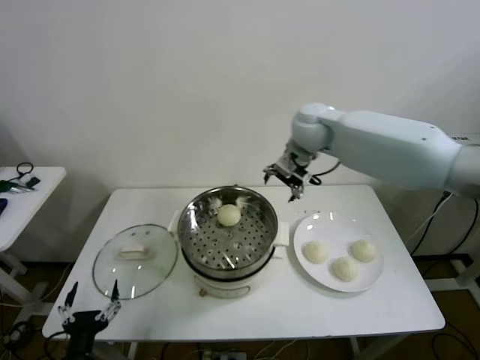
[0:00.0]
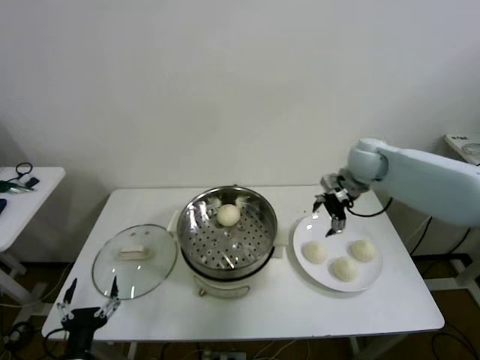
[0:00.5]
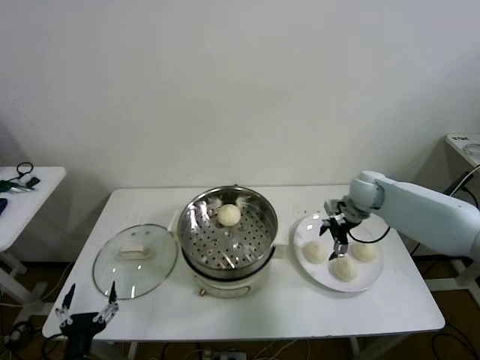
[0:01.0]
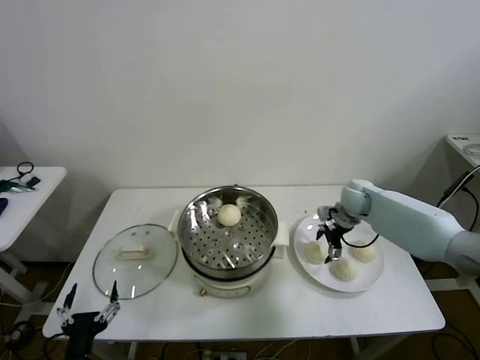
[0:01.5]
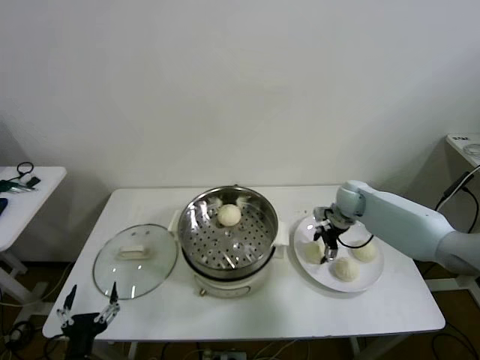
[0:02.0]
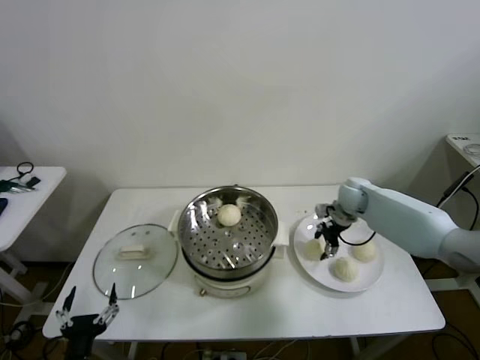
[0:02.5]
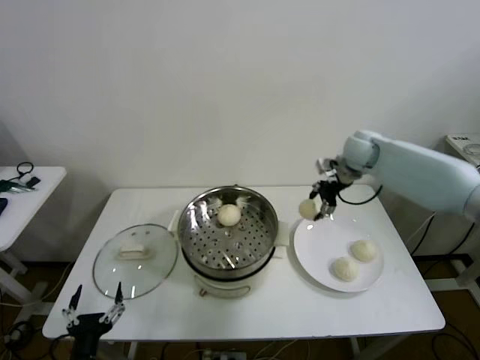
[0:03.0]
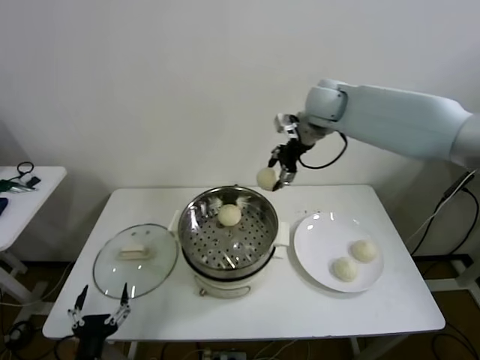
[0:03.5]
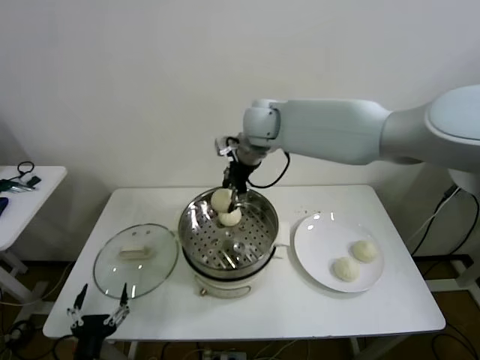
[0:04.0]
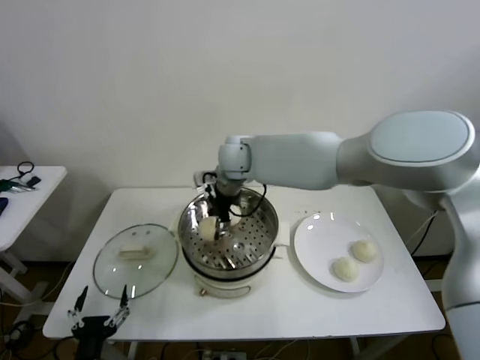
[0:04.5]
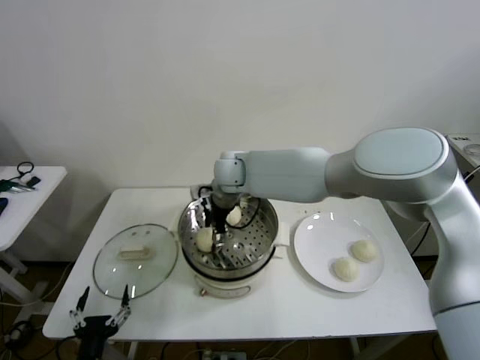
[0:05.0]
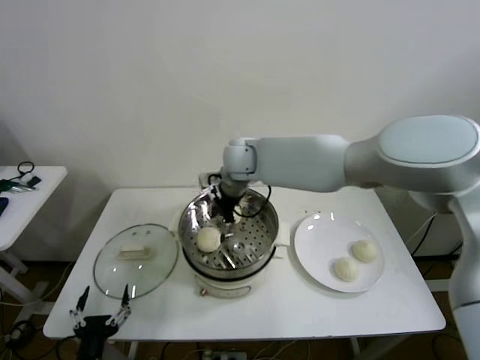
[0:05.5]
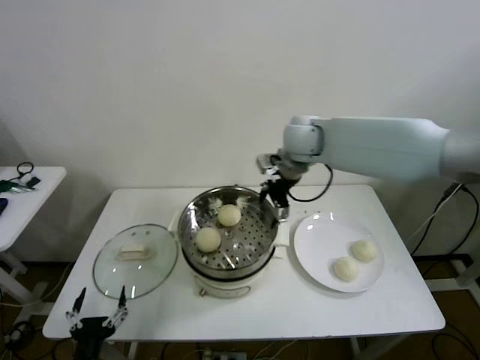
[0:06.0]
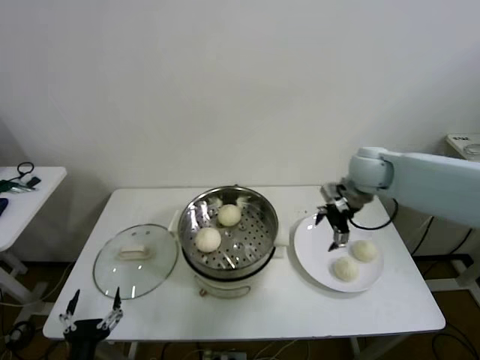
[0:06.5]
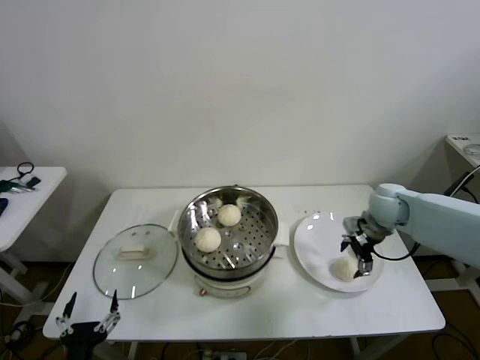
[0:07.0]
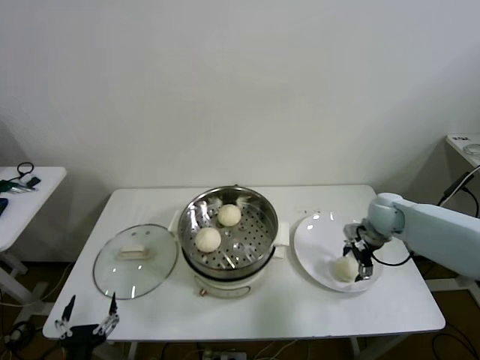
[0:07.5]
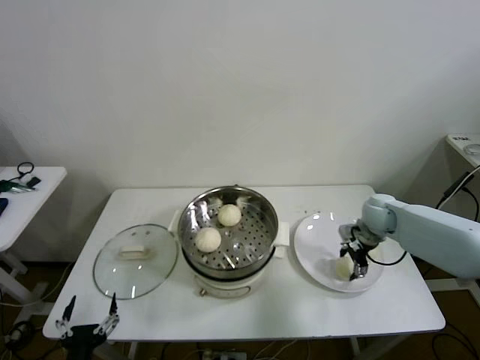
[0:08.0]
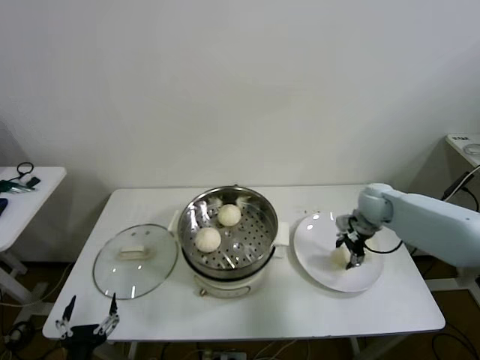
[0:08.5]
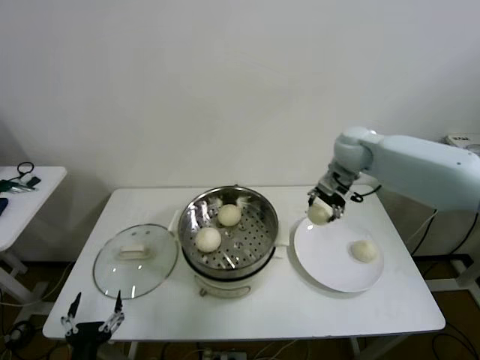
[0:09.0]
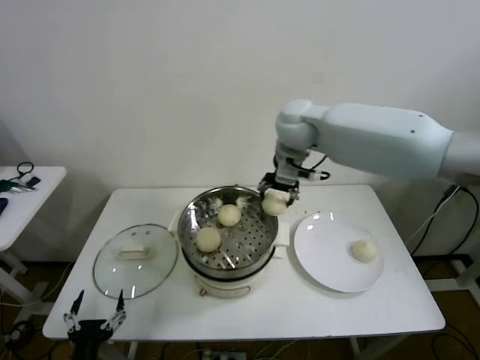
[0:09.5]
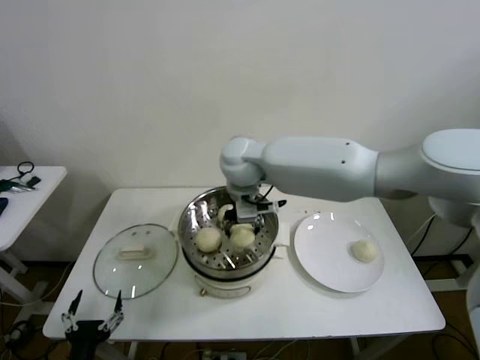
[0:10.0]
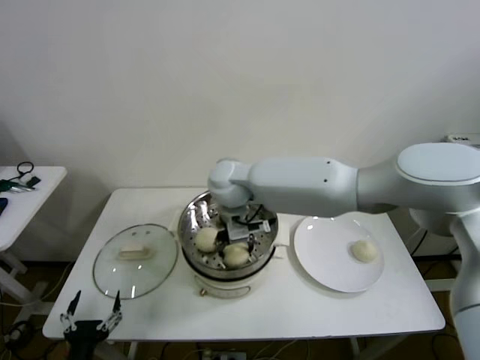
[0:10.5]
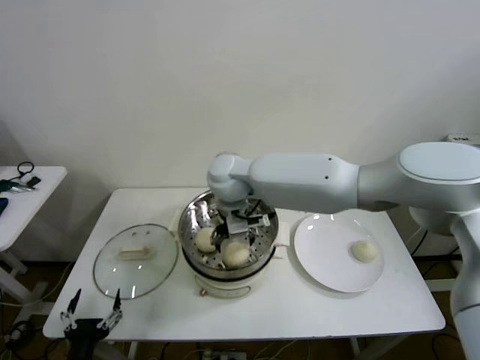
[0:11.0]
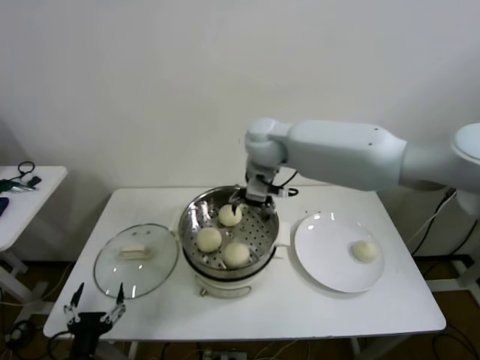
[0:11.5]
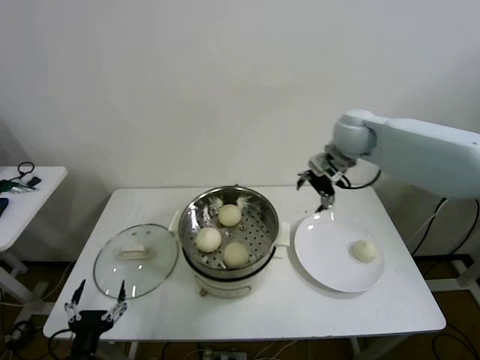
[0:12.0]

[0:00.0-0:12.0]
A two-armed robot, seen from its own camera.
Step, 0.0 to 2.0 s: Grasp the baozi in the plate with right gripper.
Step, 2.5 to 5.0 s: Place the baozi on the steamer with right gripper.
Step, 5.5 to 8.0 s: Grasp the baozi in the plate with right gripper.
Step, 8.5 to 10.5 s: Place the baozi on the steamer with right gripper.
0.0 to 2.0 s: The right gripper is displaced downward and to the right by some 25 cm, and closes.
2.0 to 4.0 s: The right gripper moves to the left and upward, about 35 cm.
4.0 to 6.0 s: The right gripper moves to the right, roughly 15 cm, and opens its fingers.
6.0 to 8.0 s: The right gripper shifts roughly 30 cm downward and to the right, and closes.
8.0 to 10.0 s: The right gripper travels to the left and upward by approximately 40 cm.
10.0 to 12.0 s: The right gripper is displaced to the right by about 25 cm, and opens up.

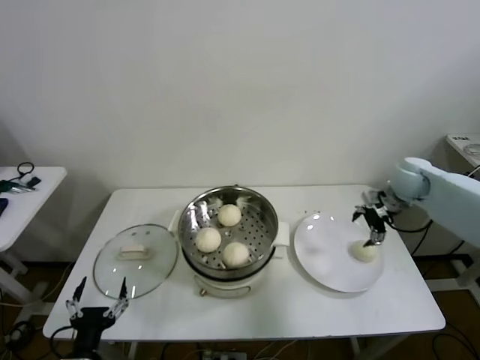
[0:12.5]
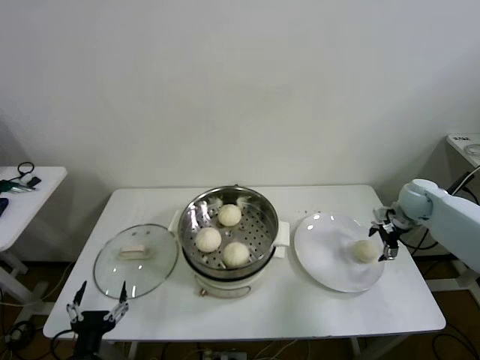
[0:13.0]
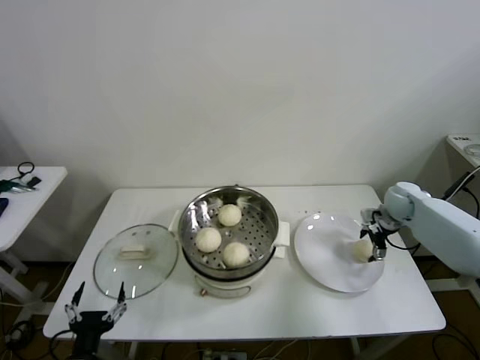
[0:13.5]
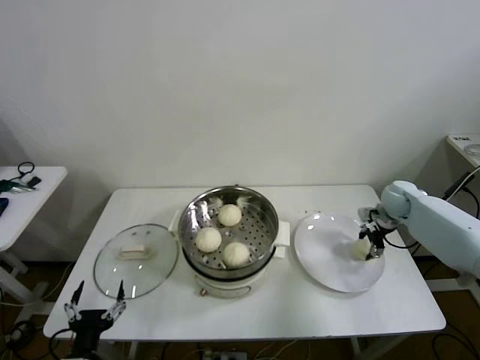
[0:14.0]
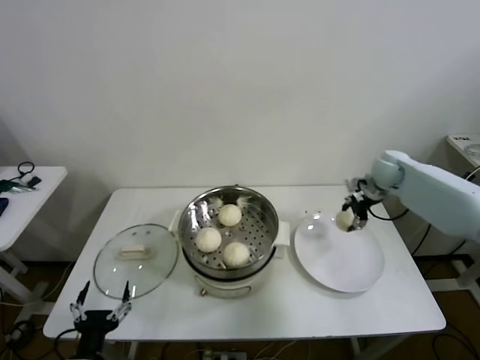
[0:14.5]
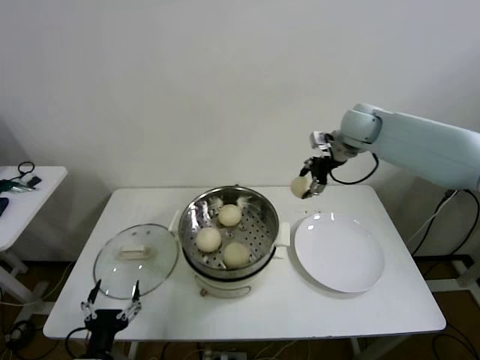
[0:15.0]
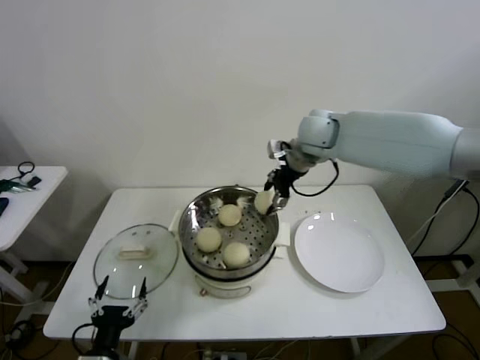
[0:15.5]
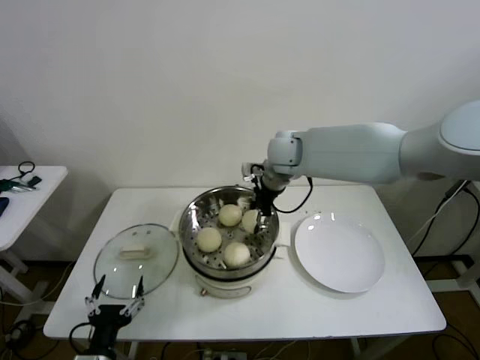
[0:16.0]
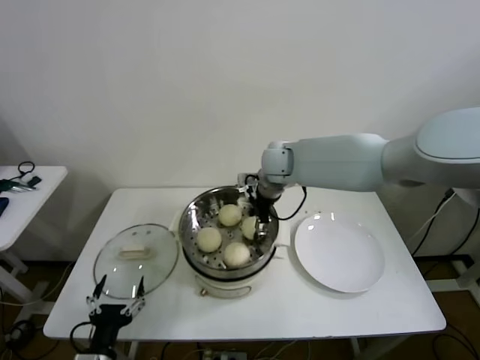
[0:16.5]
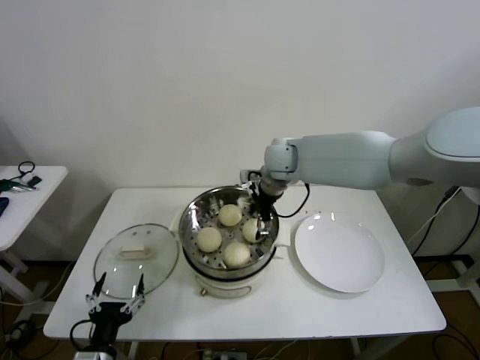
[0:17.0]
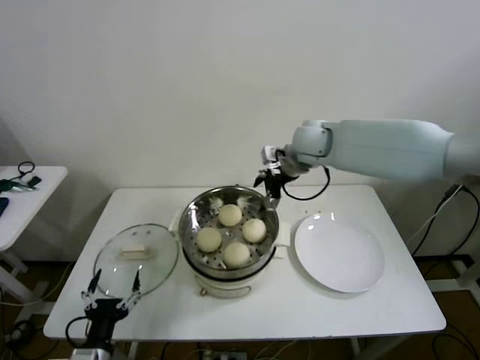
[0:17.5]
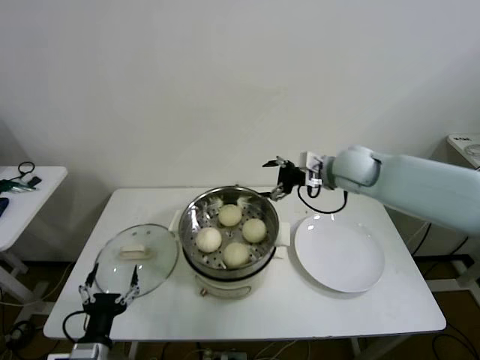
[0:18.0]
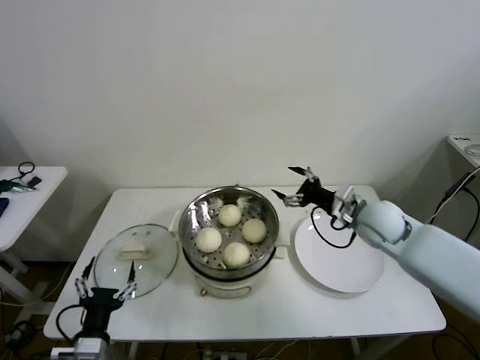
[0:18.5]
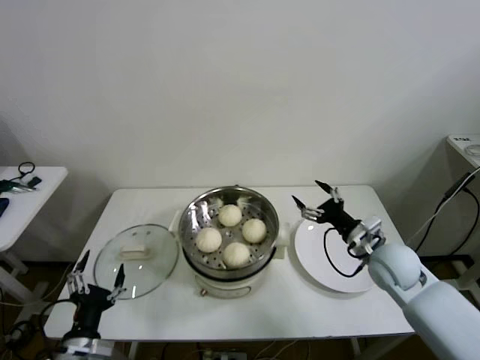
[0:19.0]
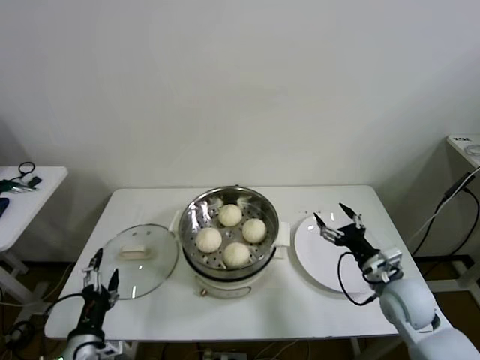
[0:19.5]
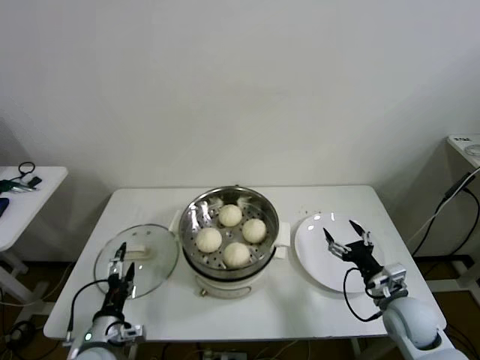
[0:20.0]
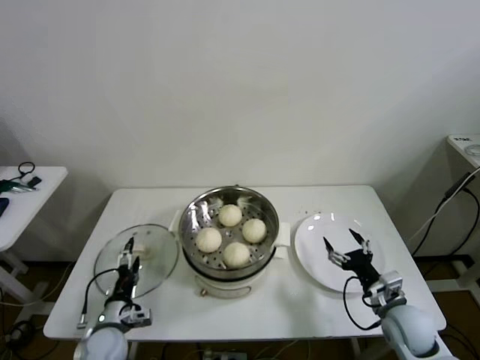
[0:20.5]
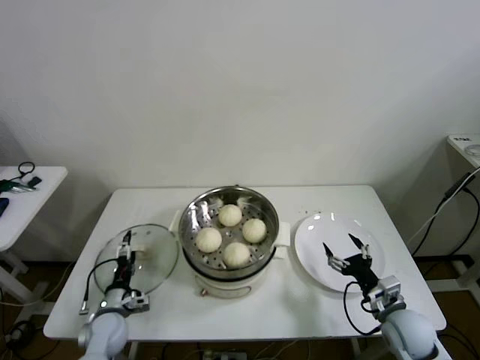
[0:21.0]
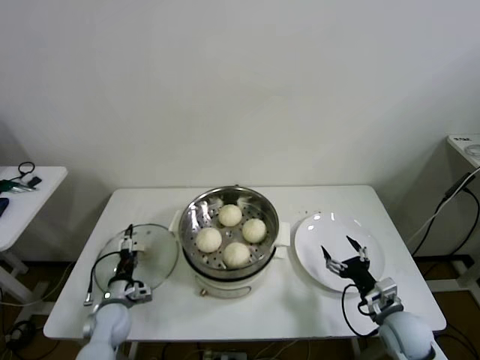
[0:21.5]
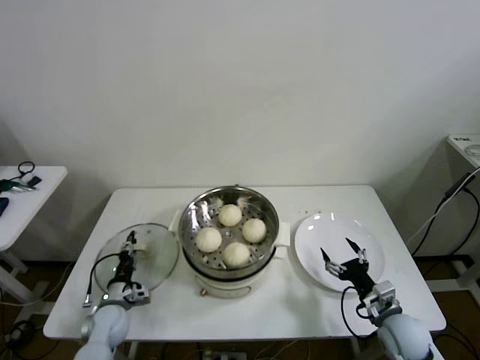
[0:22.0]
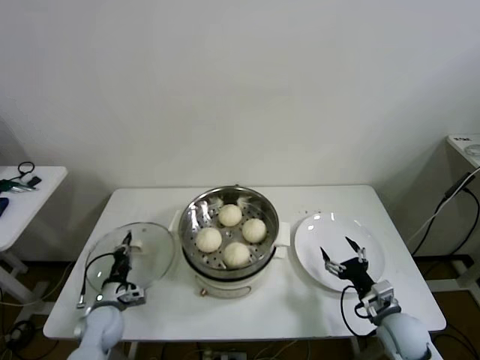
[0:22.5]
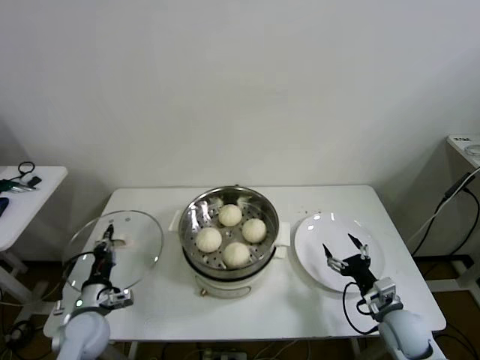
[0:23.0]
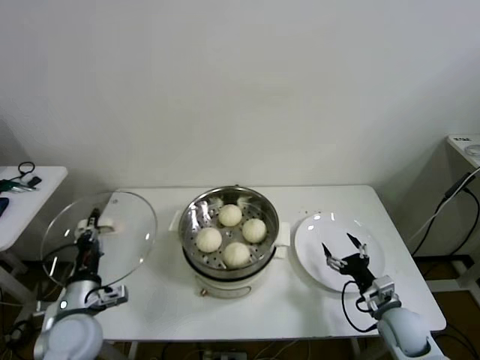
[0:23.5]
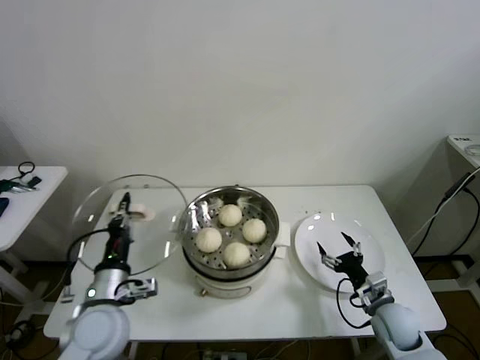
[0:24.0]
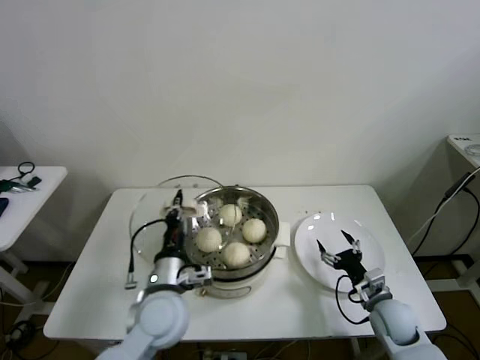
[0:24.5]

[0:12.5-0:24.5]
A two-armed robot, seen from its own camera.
Step, 14.0 to 16.5 s: Place the baozi on the steamer with right gripper.
Step, 17.5 to 22.0 s: Grasp the pot lid with left gripper.
12.5 to 14.5 s: The right gripper shifts some 5 cm forward, travels downward and back again, about 10 cm each way, and closes up.
14.5 to 16.5 s: The right gripper shifts roughly 30 cm to the left.
16.5 to 18.5 s: The right gripper is displaced to the right and backward by about 25 cm, and opens its fingers.
18.5 to 20.5 s: The right gripper goes roughly 25 cm backward and downward; the left gripper goes roughly 15 cm forward and downward.
20.5 to 22.5 s: The left gripper shifts some 5 cm forward, and closes its fingers.
22.5 to 24.5 s: The left gripper is displaced upward and to the right by approximately 25 cm.

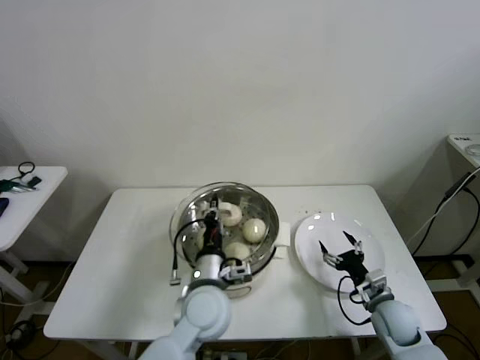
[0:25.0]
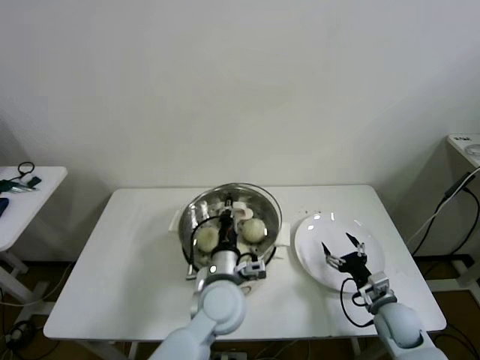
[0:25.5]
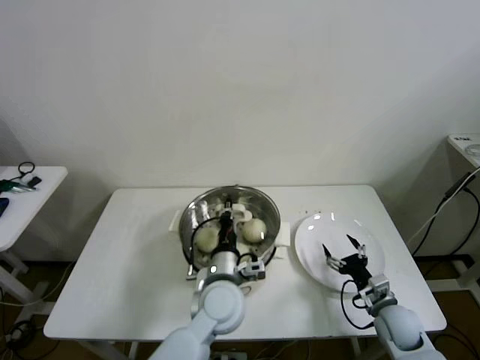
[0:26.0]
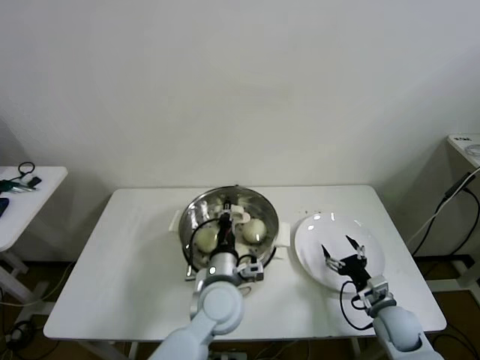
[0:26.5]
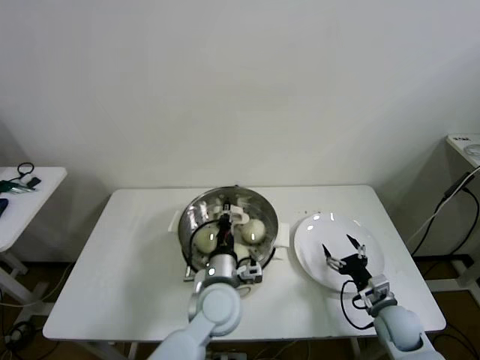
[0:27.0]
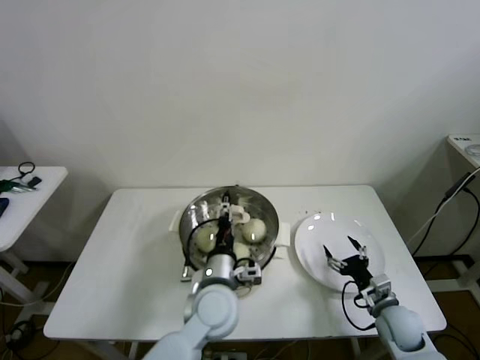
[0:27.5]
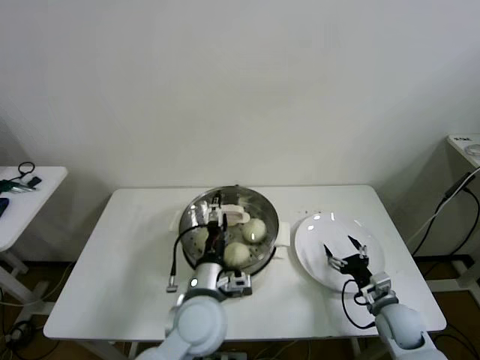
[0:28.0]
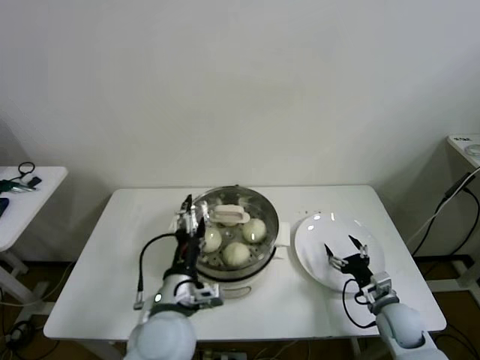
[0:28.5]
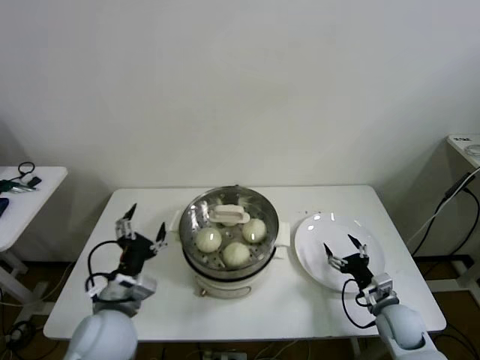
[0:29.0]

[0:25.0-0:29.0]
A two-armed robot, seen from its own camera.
Step, 25.0 to 27.0 s: Place the pot lid on the steamer with left gripper.
25.0 to 27.0 s: There are only small adjustments of the grippers.
27.0 to 29.0 s: The left gripper shifts approximately 20 cm to the left and backward, and opens.
